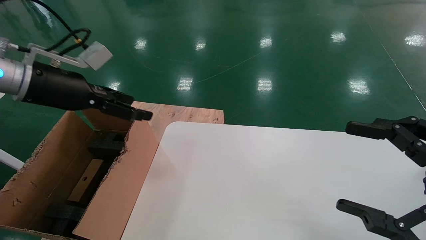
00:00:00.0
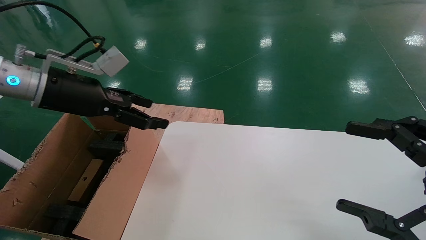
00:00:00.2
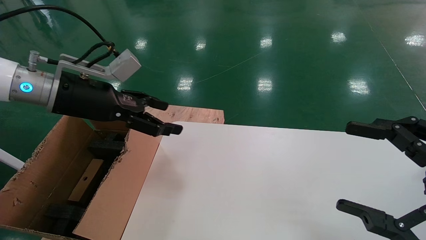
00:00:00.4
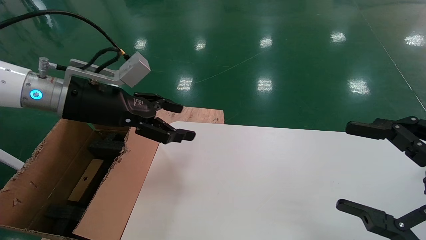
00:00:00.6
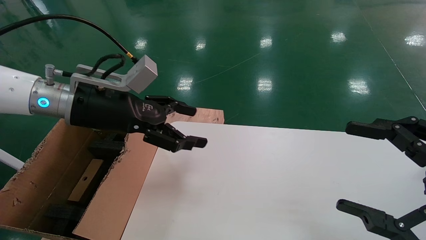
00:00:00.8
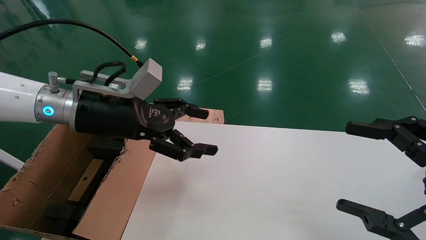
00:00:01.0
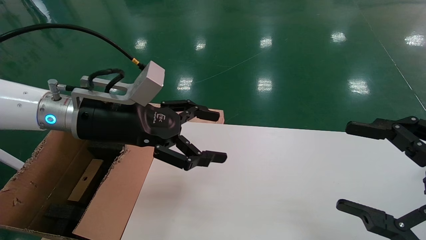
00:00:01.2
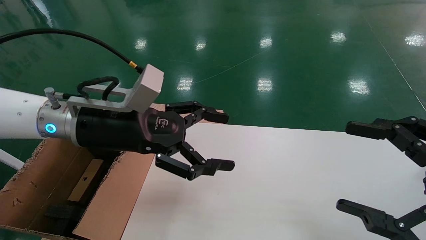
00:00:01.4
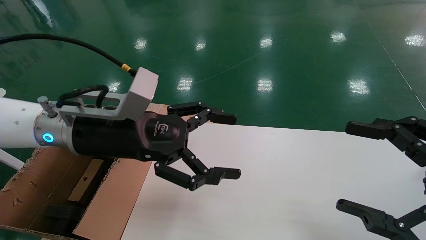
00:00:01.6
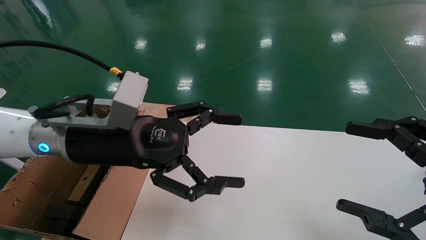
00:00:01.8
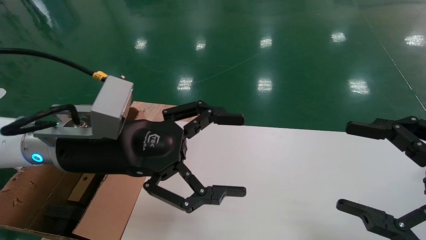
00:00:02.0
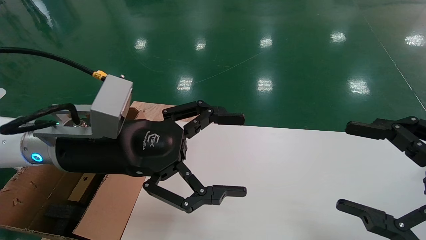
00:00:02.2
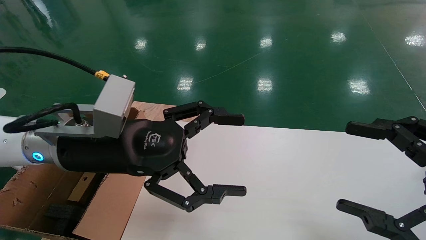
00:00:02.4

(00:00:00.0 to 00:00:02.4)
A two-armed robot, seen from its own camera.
Task of the whole recording: place the small box on the table into the large box on the left.
00:00:00.0 - 00:00:01.2: The left gripper is displaced to the right by about 10 cm.
00:00:01.2 - 00:00:02.4: The left gripper shifts by some 5 cm.
